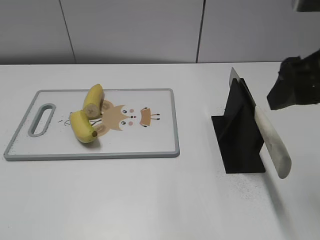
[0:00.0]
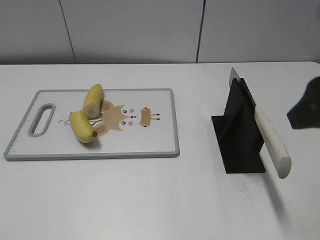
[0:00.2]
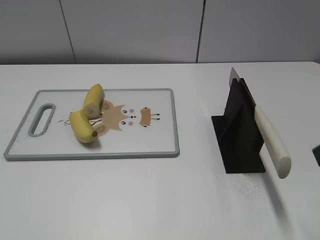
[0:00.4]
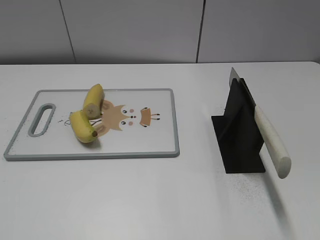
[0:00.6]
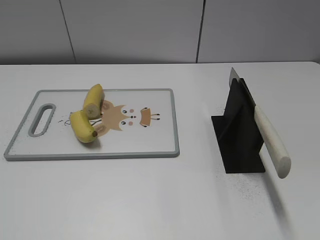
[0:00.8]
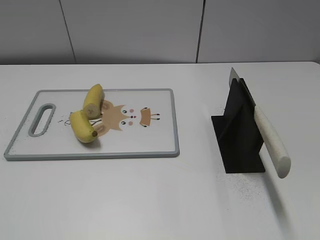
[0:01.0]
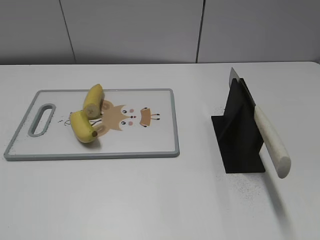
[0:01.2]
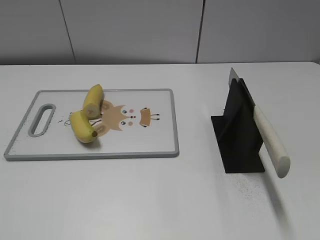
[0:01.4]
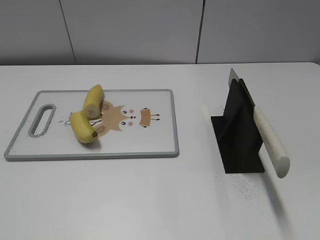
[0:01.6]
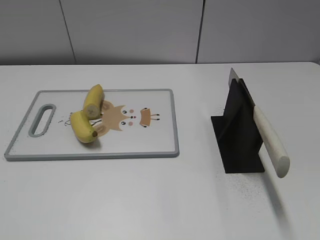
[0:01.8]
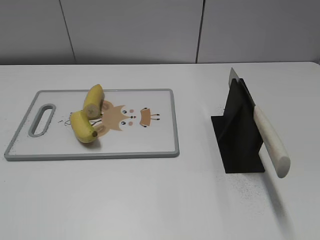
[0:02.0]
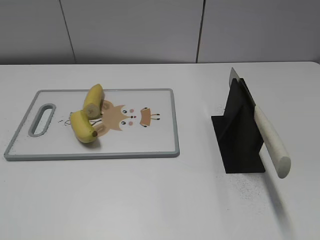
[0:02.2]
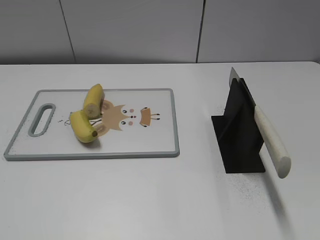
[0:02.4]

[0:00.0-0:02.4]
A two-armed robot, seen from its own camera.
Task of the whole recording: cut plastic banana.
Step, 0:00.0 to 0:02.4: Place the knife on the storage rack with your right hand.
0:00.0 to 0:01.2: The right gripper is displaced backward and to the right by about 20 cm.

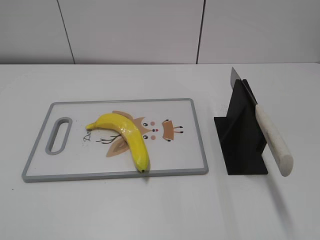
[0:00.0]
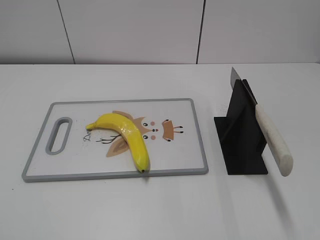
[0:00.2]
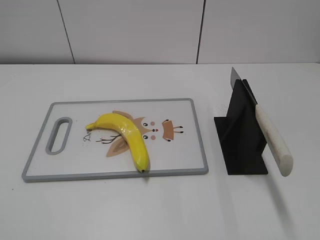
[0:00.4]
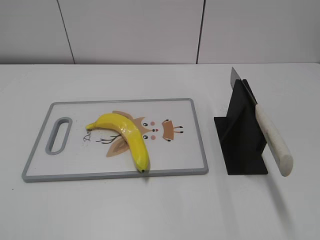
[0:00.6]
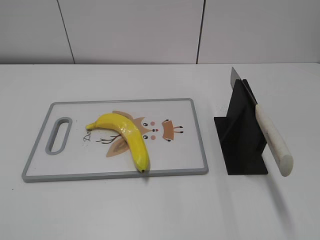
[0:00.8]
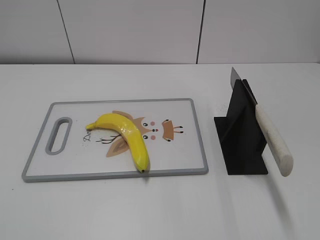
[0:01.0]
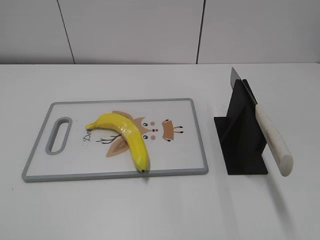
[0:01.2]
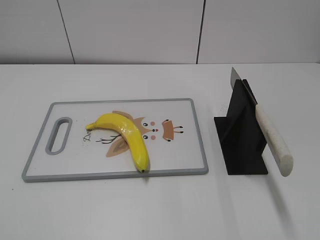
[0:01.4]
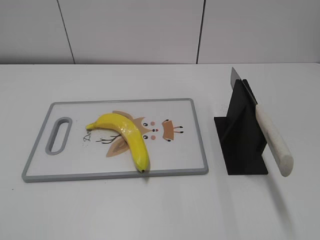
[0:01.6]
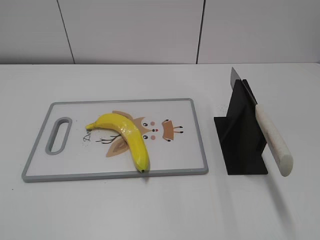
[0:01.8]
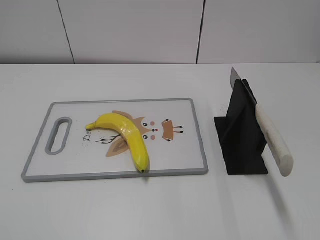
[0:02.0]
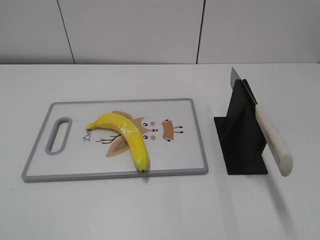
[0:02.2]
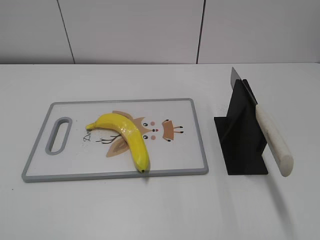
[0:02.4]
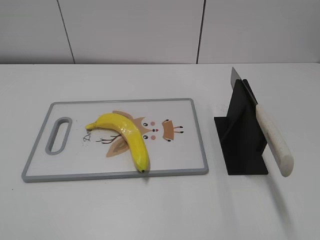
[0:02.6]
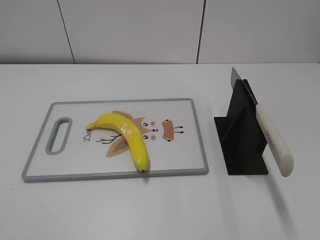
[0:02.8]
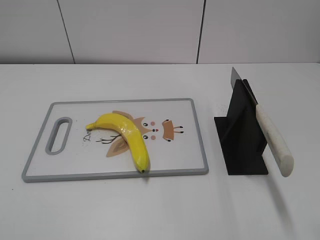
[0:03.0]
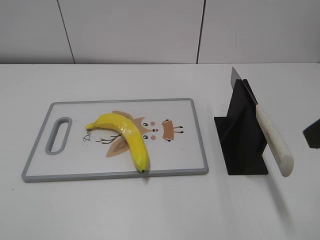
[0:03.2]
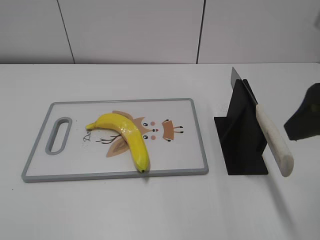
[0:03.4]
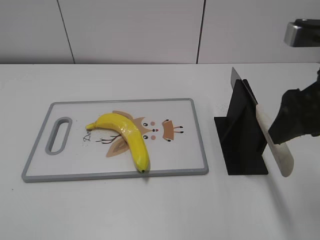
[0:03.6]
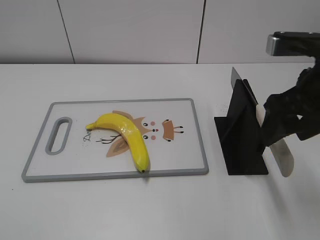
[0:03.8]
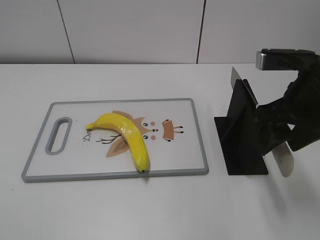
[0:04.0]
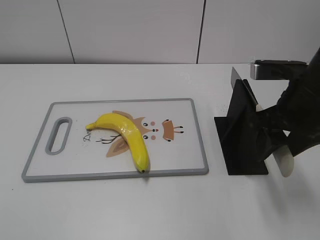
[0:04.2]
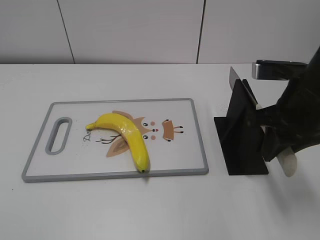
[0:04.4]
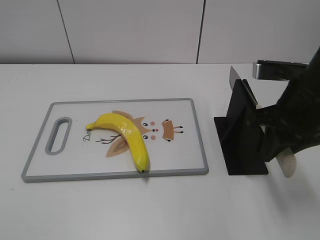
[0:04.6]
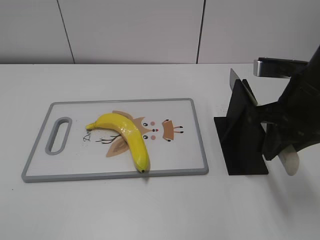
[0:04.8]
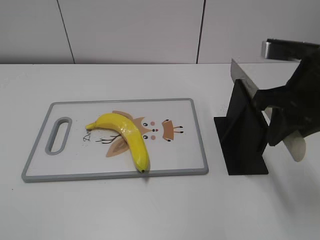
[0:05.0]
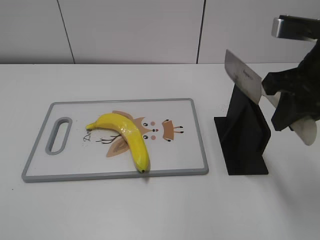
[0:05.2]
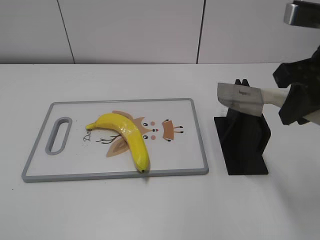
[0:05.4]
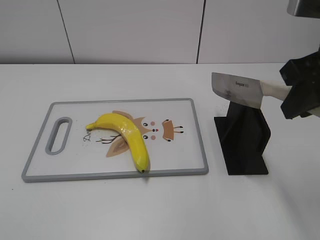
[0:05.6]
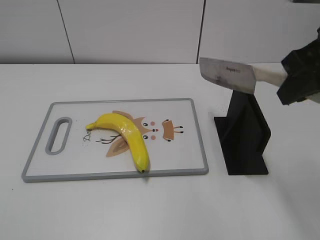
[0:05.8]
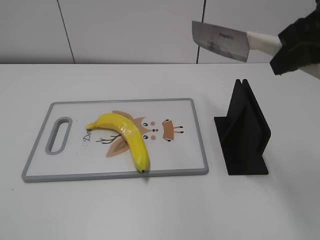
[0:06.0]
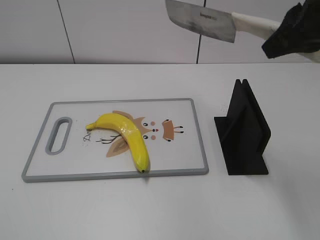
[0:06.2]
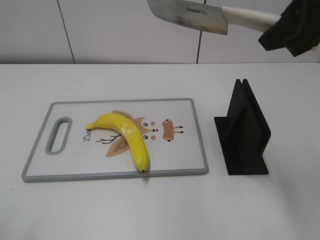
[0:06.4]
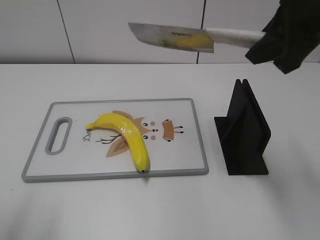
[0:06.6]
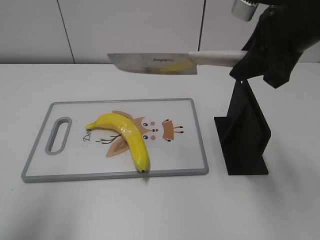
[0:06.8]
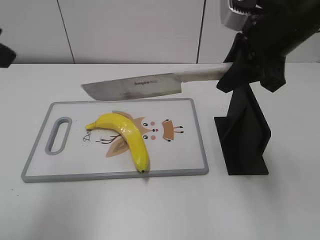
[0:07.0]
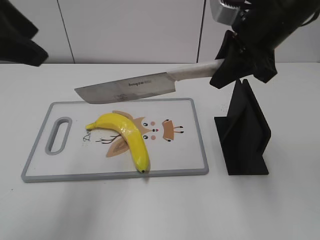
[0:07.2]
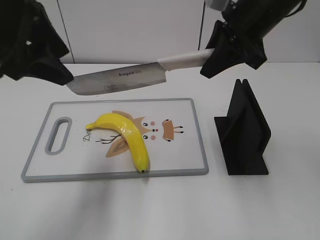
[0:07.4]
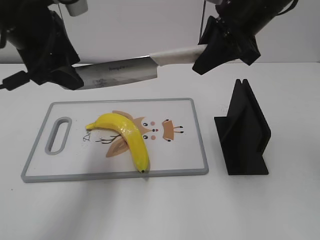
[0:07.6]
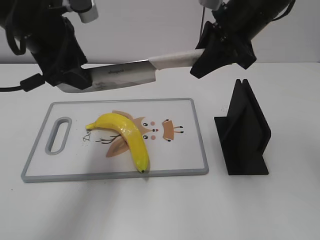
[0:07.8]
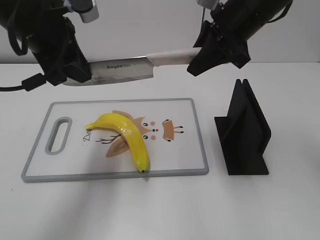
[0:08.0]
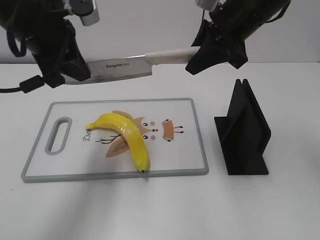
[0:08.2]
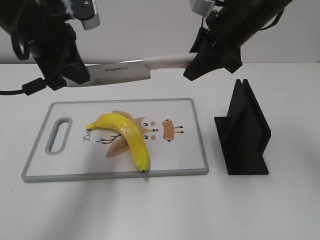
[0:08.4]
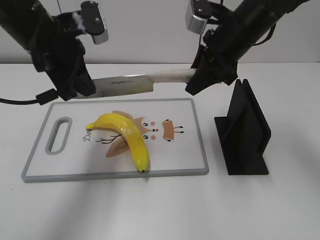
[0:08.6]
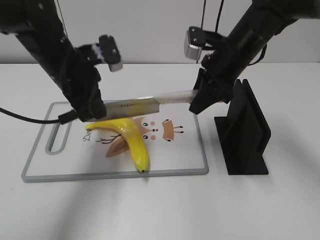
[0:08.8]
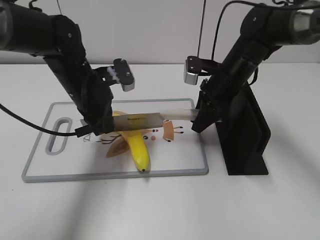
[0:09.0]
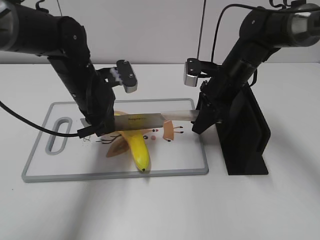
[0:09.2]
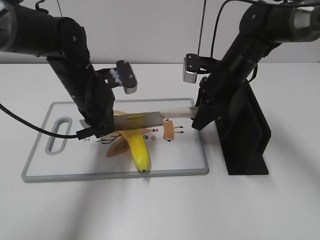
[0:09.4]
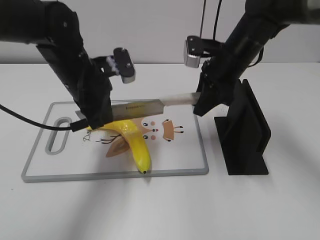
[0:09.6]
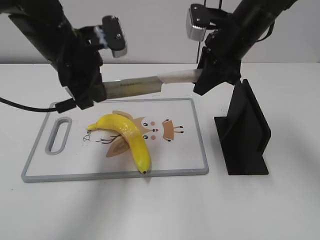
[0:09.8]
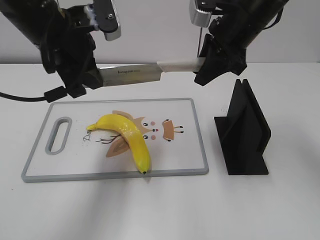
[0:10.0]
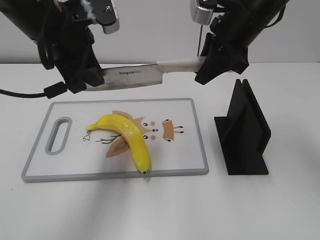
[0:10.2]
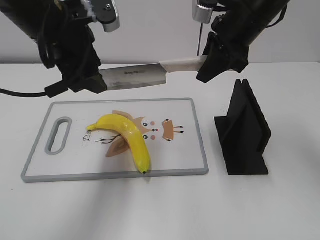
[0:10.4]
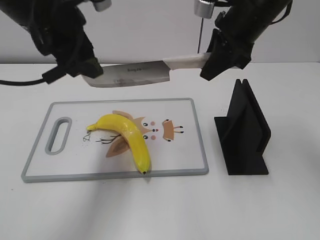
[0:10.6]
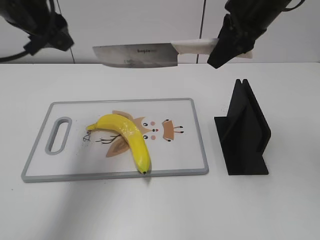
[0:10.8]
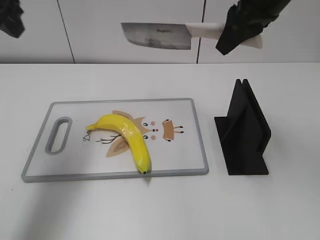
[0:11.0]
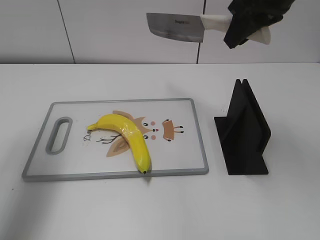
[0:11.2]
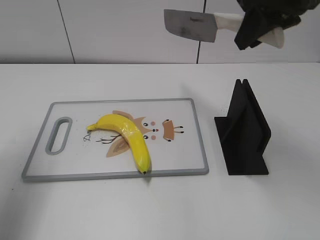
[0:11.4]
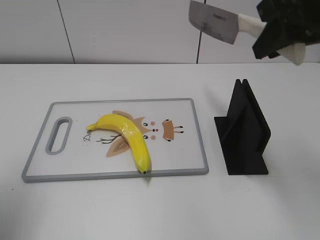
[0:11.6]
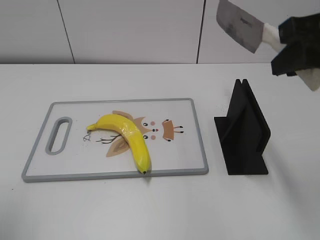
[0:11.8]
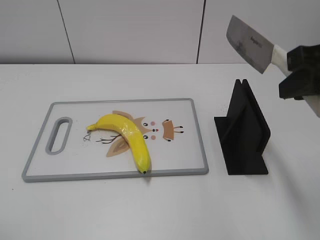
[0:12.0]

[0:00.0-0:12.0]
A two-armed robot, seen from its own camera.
Task of the whole recording: cut plastic banana.
Step, 0:00.0 to 0:05.4: Grab the knife handle with your right hand.
Step, 0:05.6 to 0:10.0: Hold the blade with your left hand.
Step, 0:10.2 to 0:11.0: Cut the banana with your right hand.
0:03.0 to 0:04.4: The right gripper goes about 15 cm forward, downward and to the left, and closes its fingers.
0:04.4 to 0:06.0: The right gripper shifts about 10 cm upward.
0:06.0 to 0:07.6: The right gripper goes approximately 15 cm forward and to the left. Meanwhile the left gripper heads forward and to the right, covering about 35 cm.
0:07.6 to 0:09.0: The grippers both shift downward by roughly 15 cm. The left gripper closes up.
0:09.0 to 0:10.4: The two grippers go some 15 cm upward. The left gripper opens up.
0:10.4 to 0:12.0: The left gripper goes roughly 30 cm backward and to the left. Meanwhile the right gripper goes approximately 20 cm backward and to the right.

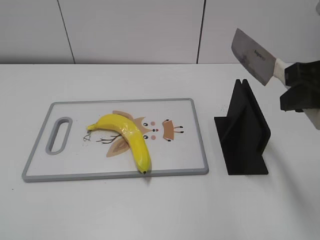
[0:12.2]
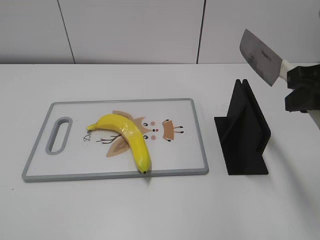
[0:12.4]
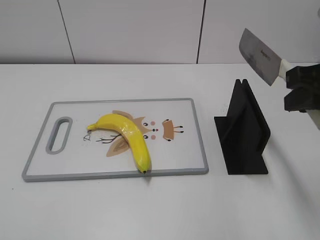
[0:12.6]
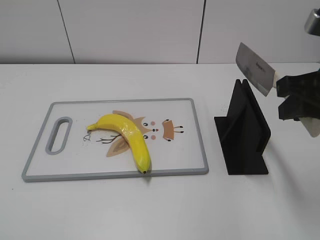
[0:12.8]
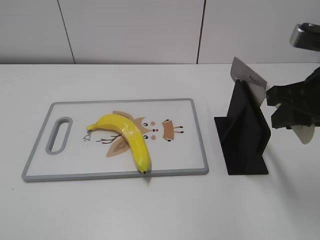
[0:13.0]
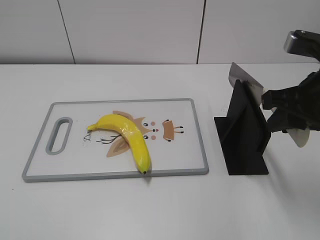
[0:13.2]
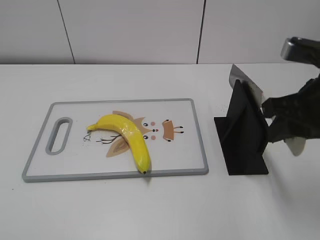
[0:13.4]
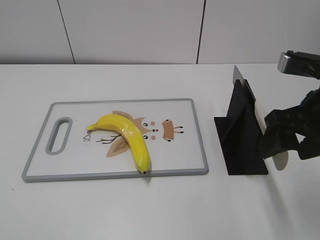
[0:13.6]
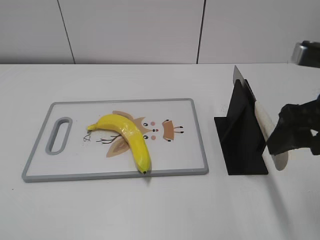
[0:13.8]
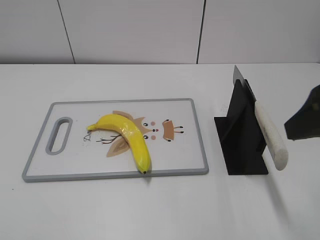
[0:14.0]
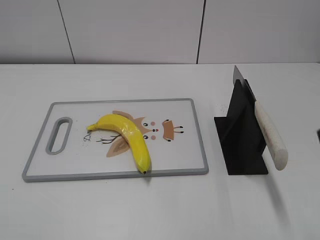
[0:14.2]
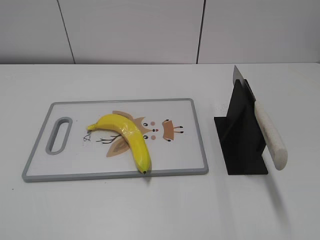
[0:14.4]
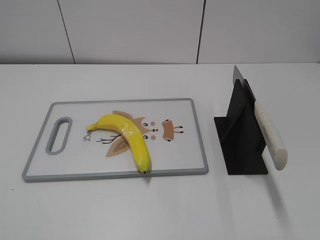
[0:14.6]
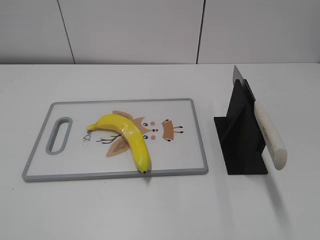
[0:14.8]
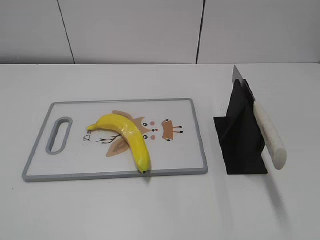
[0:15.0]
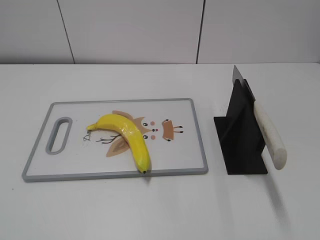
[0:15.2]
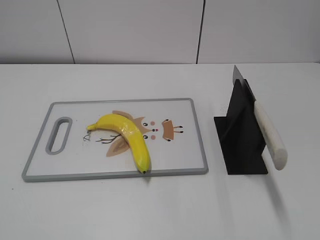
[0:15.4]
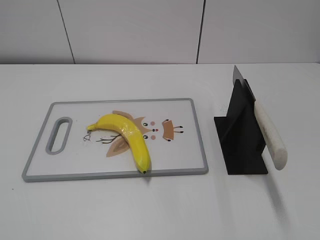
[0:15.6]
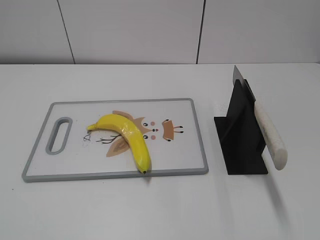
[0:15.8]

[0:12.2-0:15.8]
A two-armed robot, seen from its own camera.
Task of the whole recording: cut plastic banana.
Step, 0:12.4 to 0:15.8: Place the knife on the storage rack with your right hand.
0:12.2 to 0:14.0: The right gripper opens.
0:14.0 to 0:15.8: The right gripper is displaced backward by some 20 cm.
